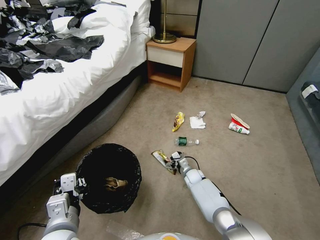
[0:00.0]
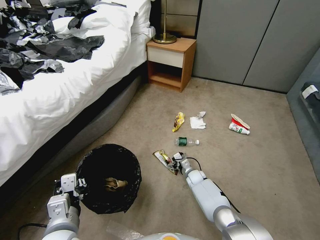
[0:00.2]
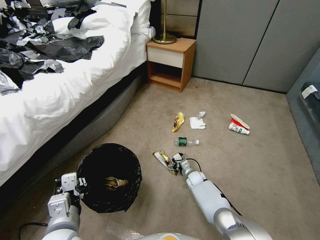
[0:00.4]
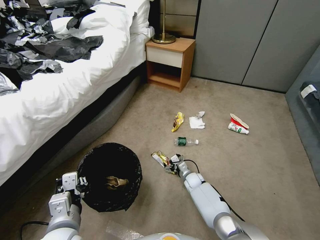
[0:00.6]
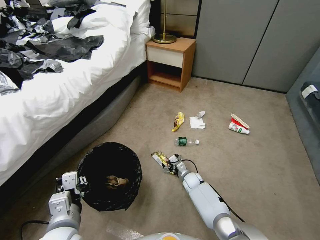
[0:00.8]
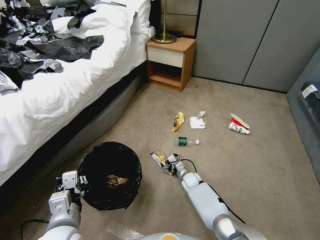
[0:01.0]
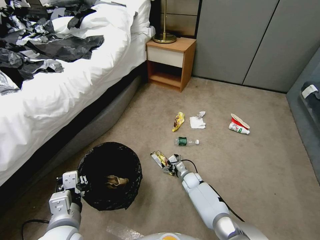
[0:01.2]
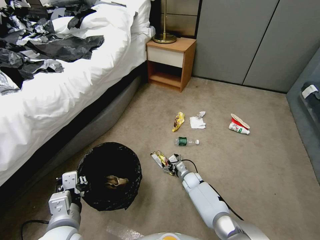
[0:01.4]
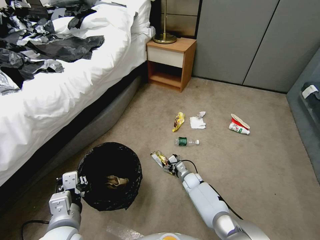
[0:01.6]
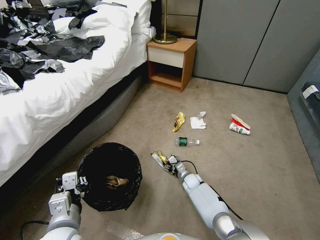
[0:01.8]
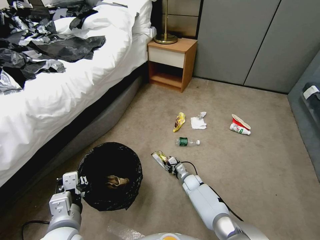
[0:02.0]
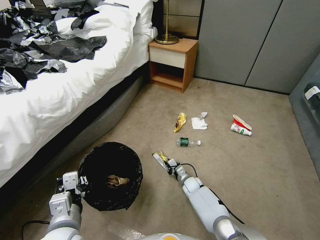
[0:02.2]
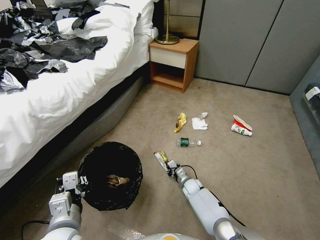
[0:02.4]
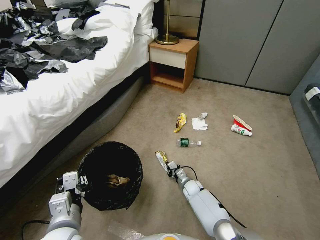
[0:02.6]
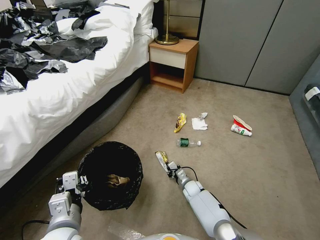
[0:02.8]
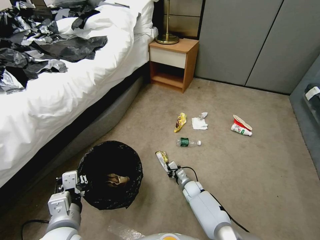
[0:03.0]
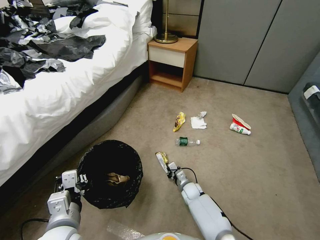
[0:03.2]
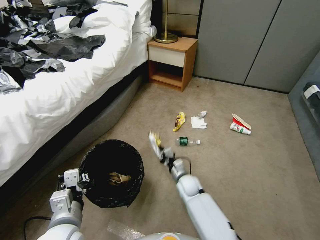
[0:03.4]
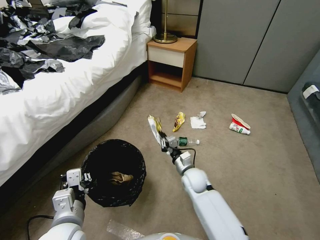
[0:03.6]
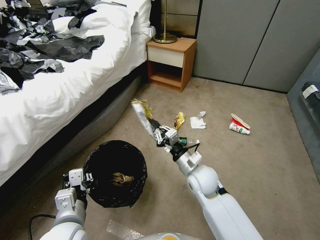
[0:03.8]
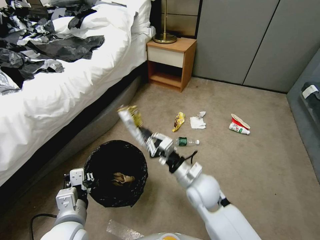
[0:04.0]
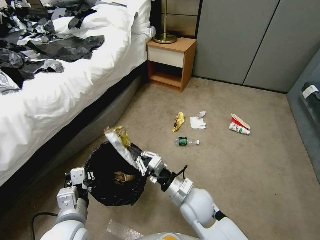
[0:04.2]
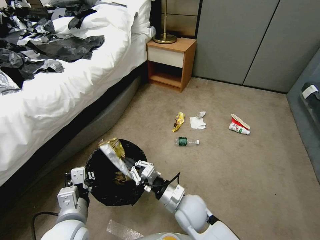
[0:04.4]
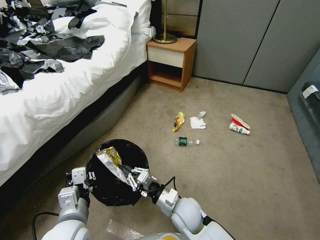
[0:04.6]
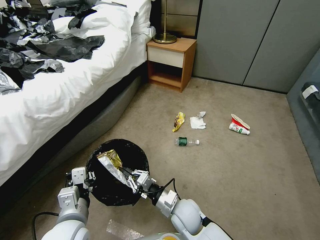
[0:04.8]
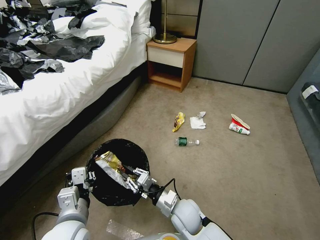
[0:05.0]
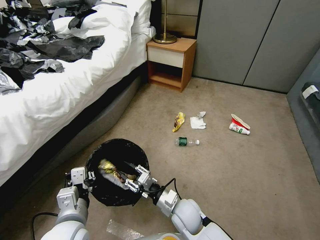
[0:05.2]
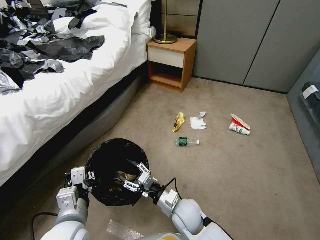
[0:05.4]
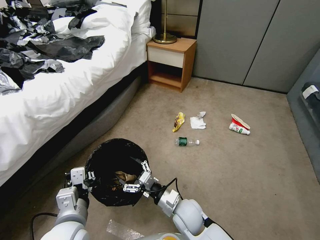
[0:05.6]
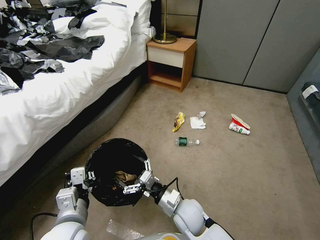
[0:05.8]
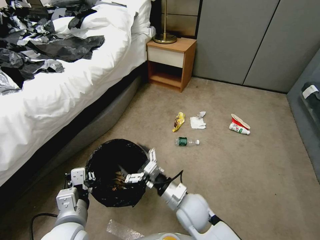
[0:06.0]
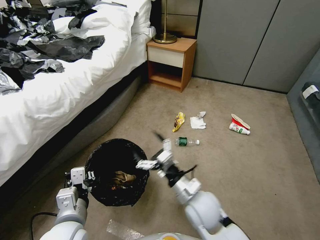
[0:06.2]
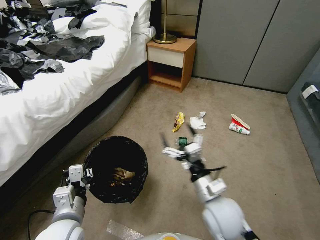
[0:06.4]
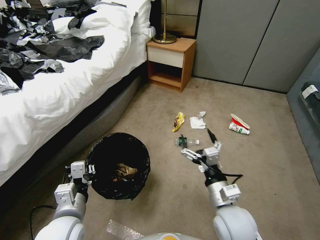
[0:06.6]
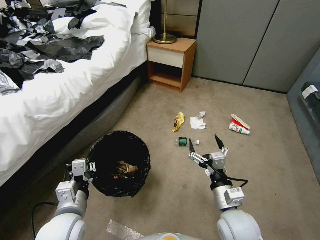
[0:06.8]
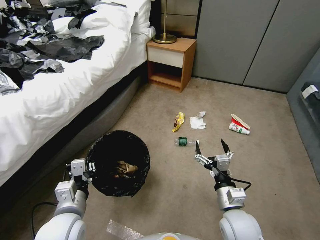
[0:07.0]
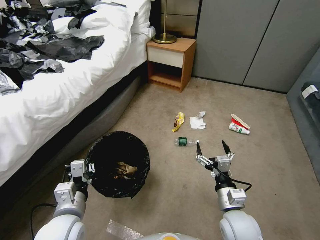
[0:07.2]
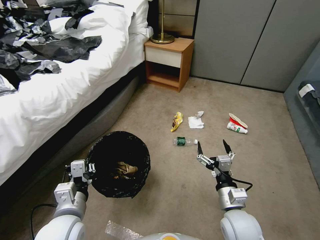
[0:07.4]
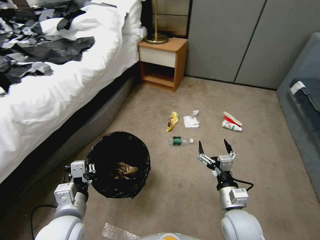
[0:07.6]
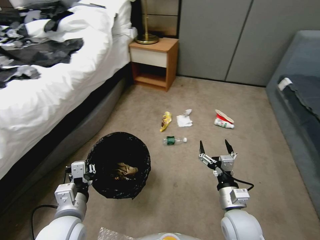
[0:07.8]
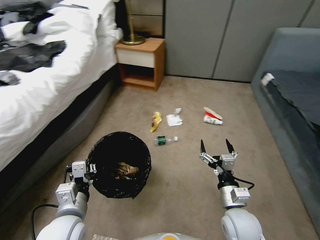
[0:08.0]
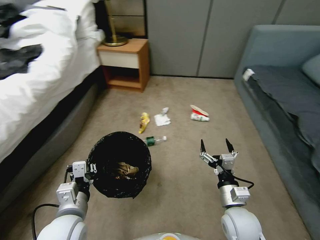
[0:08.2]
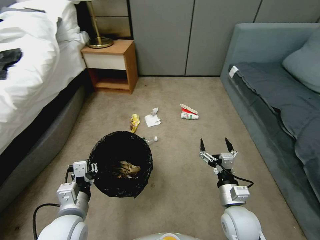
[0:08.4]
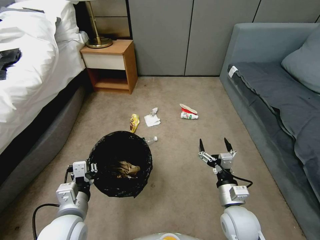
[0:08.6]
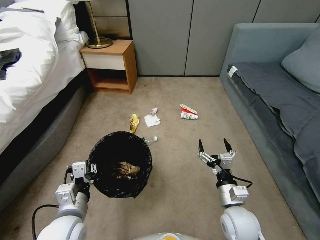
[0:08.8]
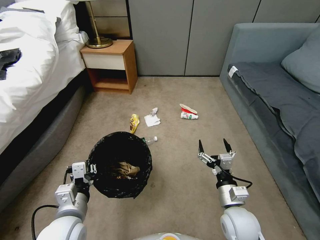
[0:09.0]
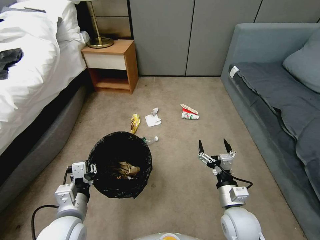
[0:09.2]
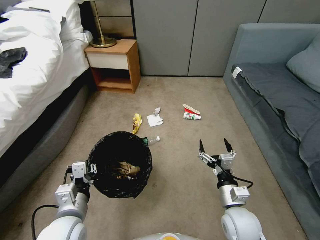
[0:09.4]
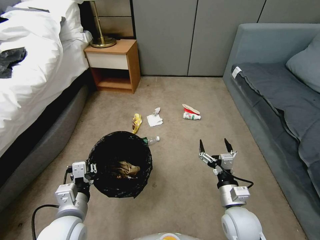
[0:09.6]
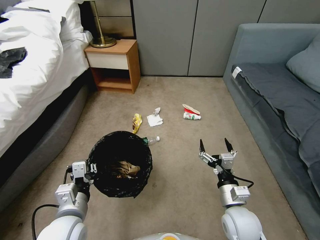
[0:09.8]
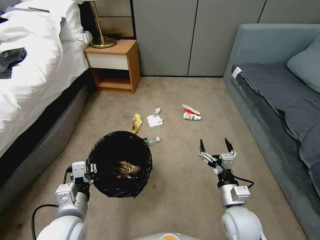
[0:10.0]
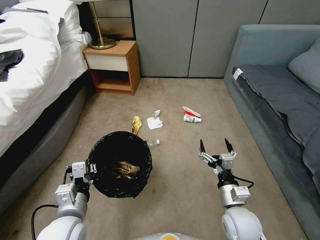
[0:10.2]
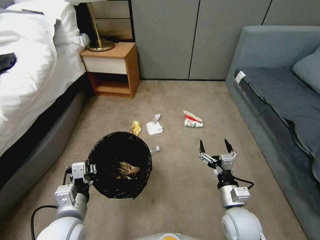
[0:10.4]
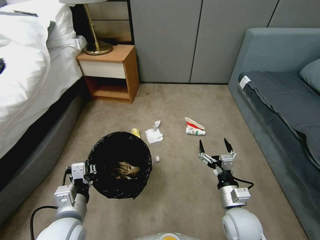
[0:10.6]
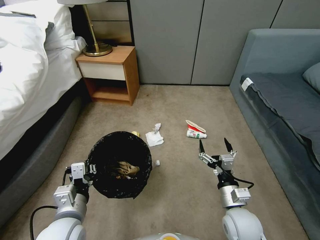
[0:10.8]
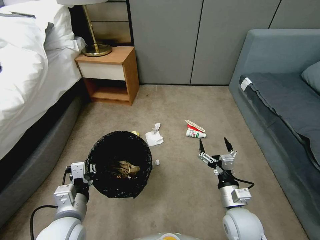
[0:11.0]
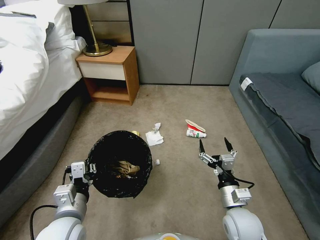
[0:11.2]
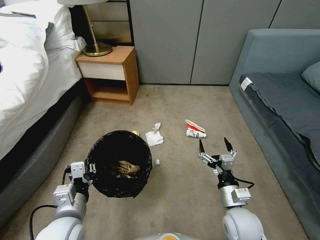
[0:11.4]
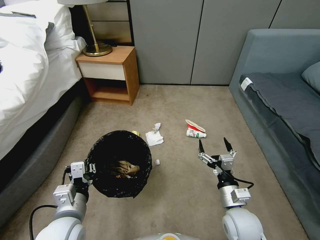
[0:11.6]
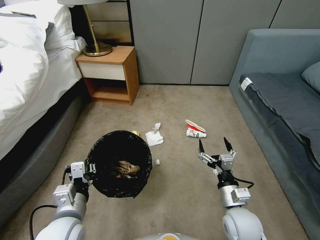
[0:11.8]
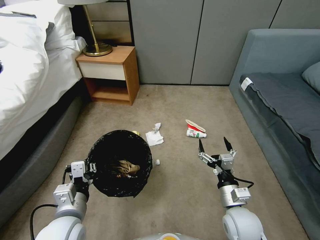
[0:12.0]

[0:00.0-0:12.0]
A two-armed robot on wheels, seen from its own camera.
Task of the whole recording: Pick up the trash bin, then pick up the garbage from the floor and place it into the trash bin.
0:00.0 to 0:01.6: The grippers stay close to where they were, moving slightly.
0:01.6 to 0:03.0: The right gripper closes its fingers.
0:03.0 to 0:04.4: The right gripper travels upward and backward by approximately 25 cm.
0:04.4 to 0:06.0: The right gripper opens its fingers.
0:06.0 to 0:07.6: The right gripper travels to the right by about 15 cm.
0:09.0 to 0:12.0: Both grippers stay about where they are.

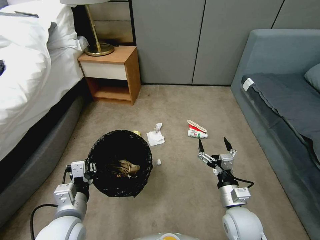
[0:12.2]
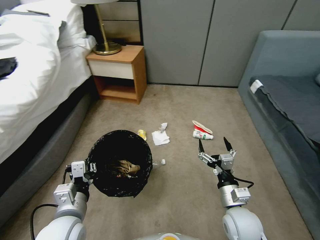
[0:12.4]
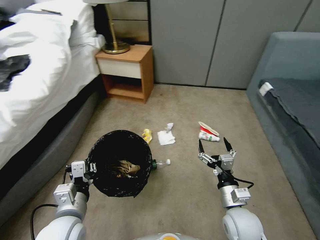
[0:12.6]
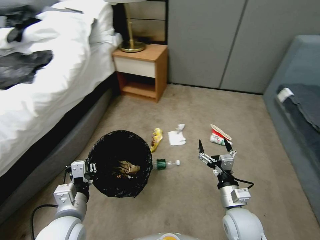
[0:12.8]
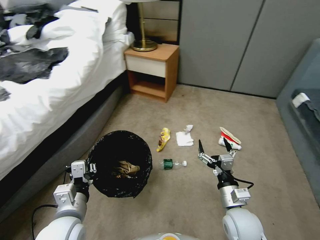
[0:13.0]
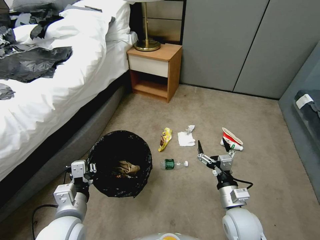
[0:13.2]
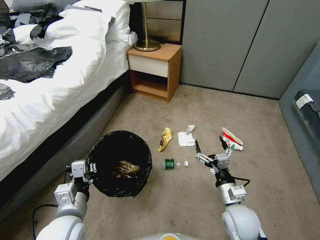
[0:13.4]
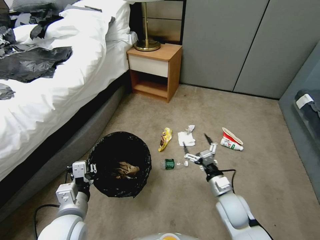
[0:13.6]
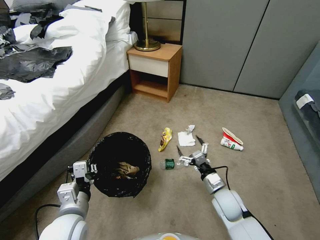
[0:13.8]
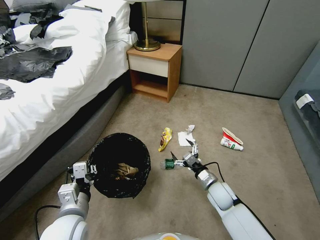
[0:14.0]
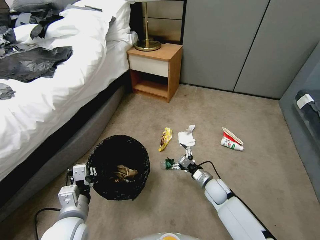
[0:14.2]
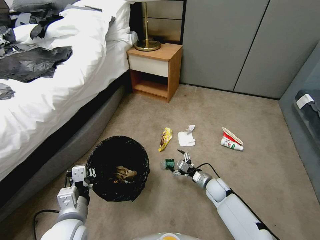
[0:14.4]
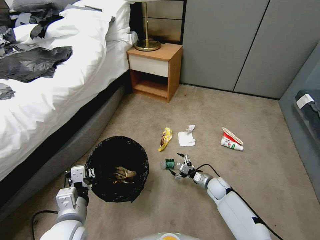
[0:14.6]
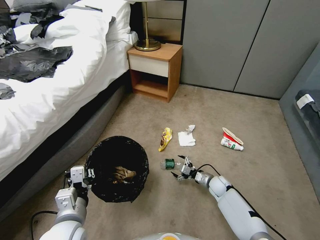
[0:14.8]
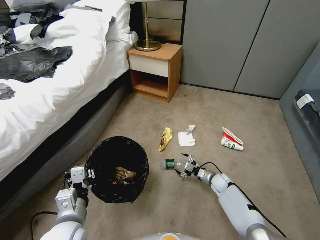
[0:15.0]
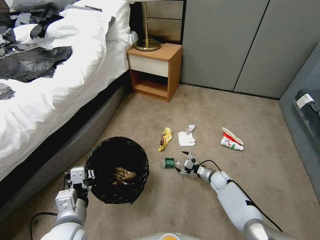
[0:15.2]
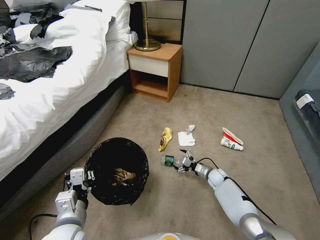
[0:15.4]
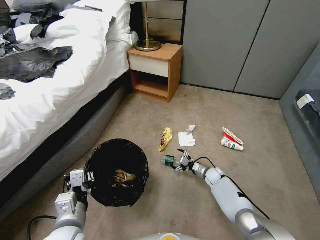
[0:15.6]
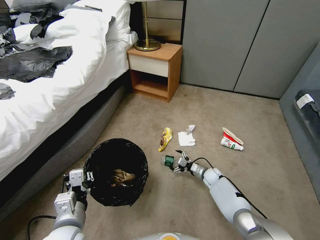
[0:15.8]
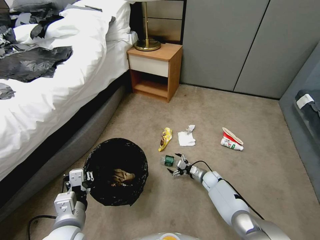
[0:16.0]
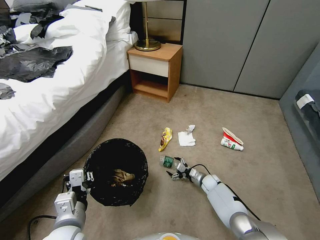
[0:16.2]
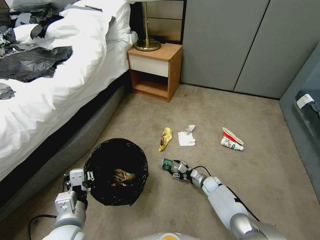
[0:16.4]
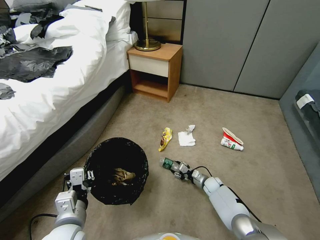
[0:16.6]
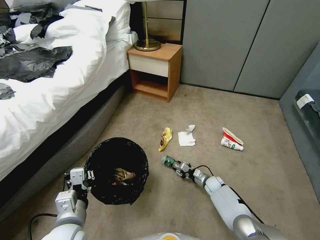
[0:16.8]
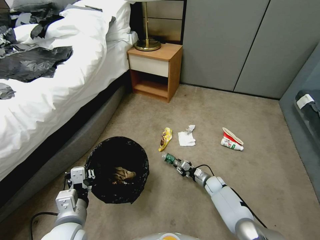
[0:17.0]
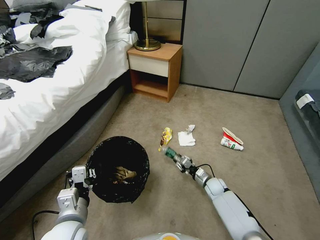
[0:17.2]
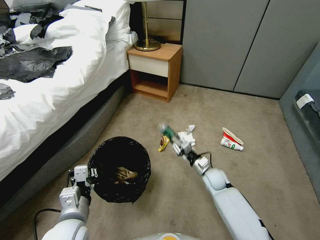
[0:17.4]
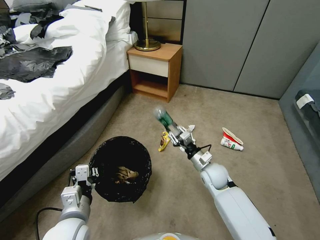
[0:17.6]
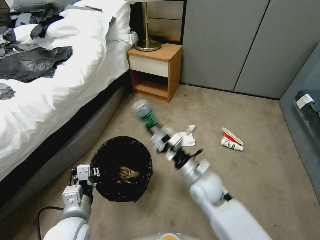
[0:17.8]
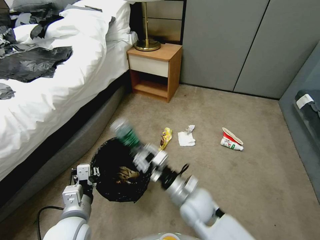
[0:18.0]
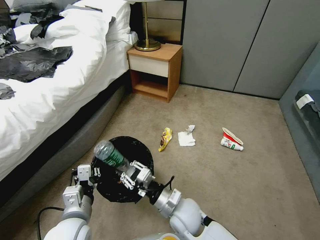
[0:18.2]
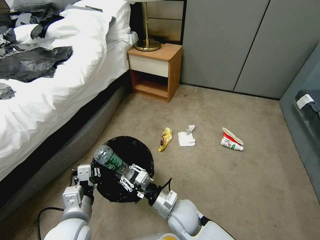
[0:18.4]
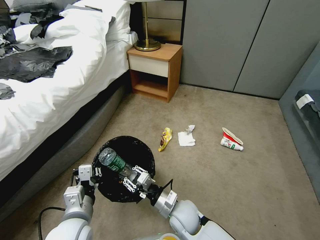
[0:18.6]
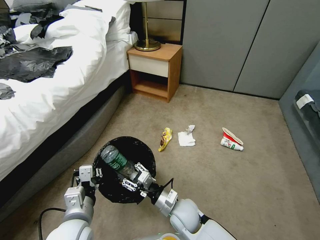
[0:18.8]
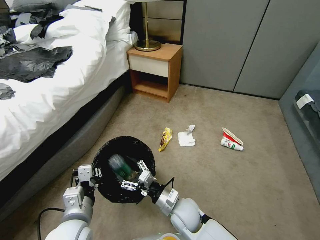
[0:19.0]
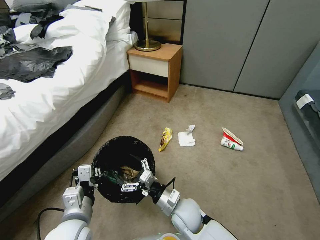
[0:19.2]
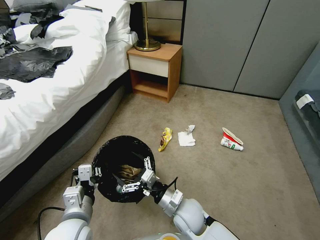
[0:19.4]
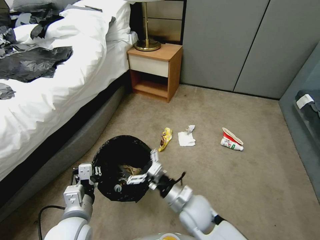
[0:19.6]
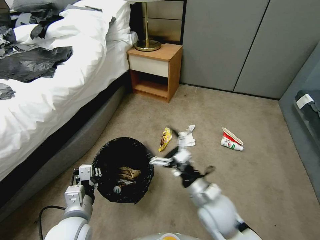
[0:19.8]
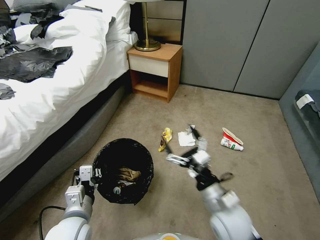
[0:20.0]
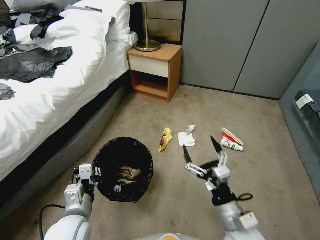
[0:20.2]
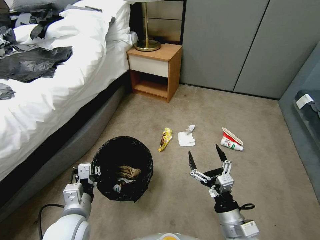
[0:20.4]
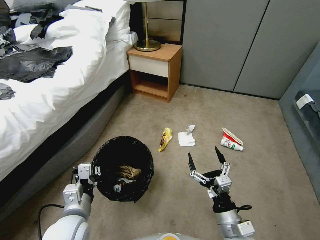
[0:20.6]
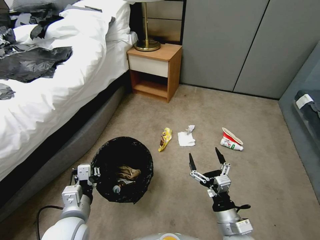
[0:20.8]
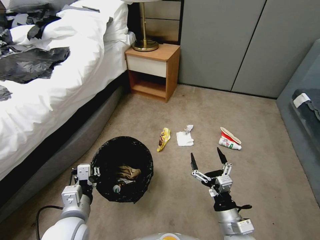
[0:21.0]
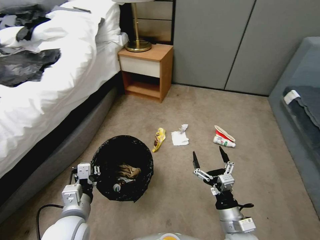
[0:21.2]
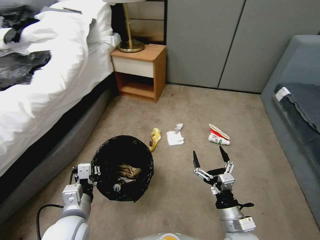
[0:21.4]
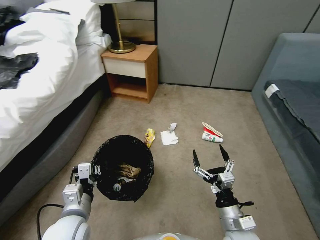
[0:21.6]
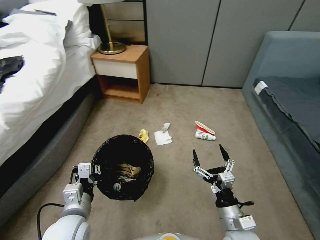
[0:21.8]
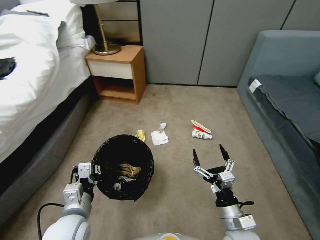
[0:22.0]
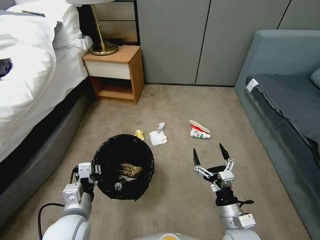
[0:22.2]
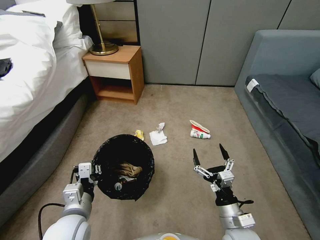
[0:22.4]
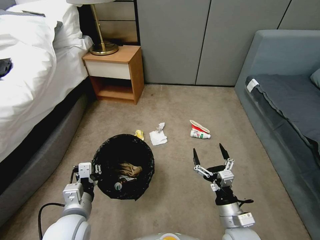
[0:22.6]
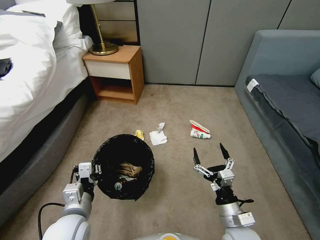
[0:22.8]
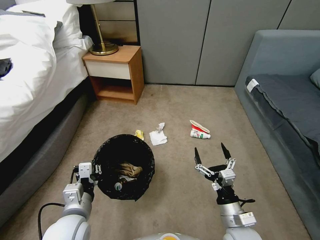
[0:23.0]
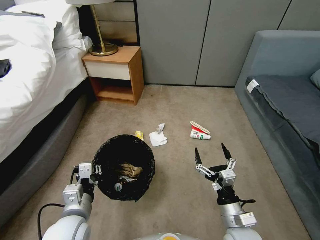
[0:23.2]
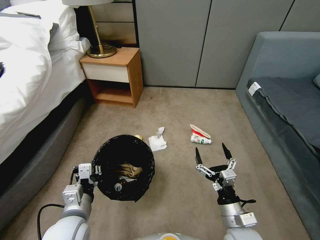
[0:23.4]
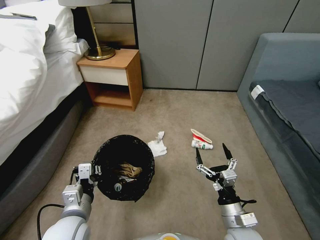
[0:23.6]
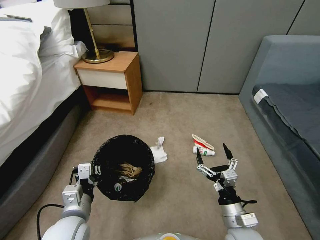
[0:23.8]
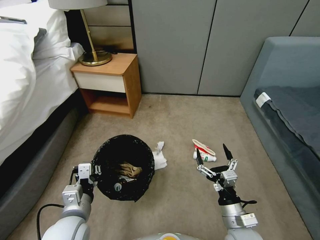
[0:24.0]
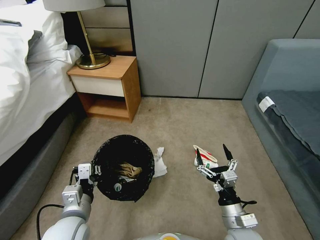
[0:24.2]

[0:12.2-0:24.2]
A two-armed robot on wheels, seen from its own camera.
Task of the whole recording: Pick up the trash bin, then pick up the garbage from the floor and place it into the trash bin.
0:12.2 to 0:13.8: The right gripper heads forward and downward, covering roughly 10 cm.
0:13.8 to 0:15.2: The right gripper moves downward and forward, about 20 cm.
0:15.2 to 0:16.6: The right gripper closes up.
0:16.6 to 0:18.2: The right gripper is displaced upward, to the left and backward by some 35 cm.
0:18.2 to 0:19.8: The right gripper goes approximately 10 cm to the right and upward, and opens its fingers.
0:19.8 to 0:21.2: The right gripper moves to the right, backward and downward, approximately 15 cm.
